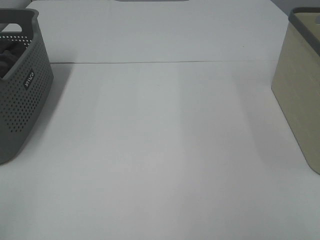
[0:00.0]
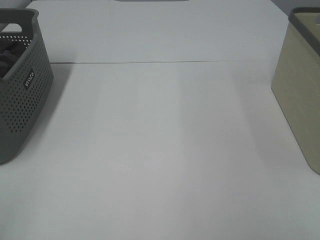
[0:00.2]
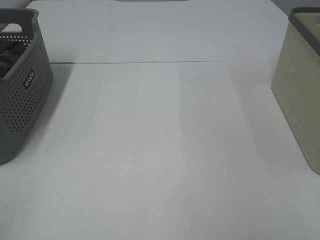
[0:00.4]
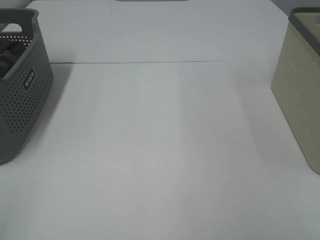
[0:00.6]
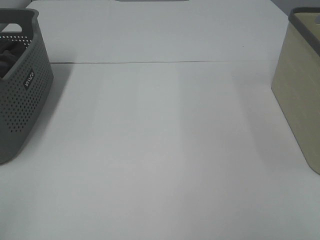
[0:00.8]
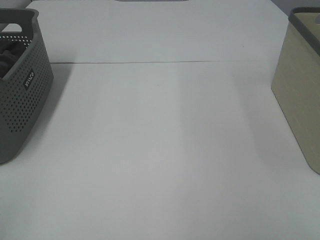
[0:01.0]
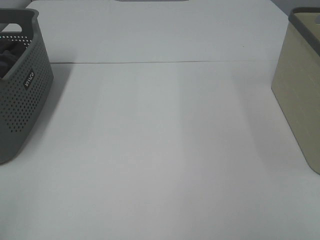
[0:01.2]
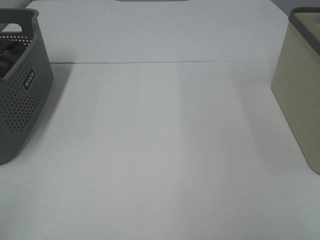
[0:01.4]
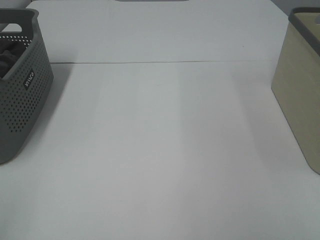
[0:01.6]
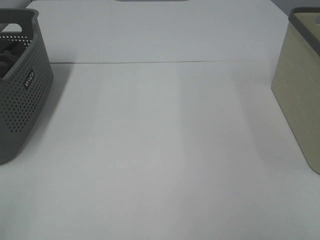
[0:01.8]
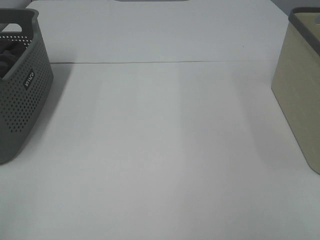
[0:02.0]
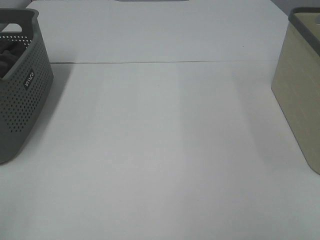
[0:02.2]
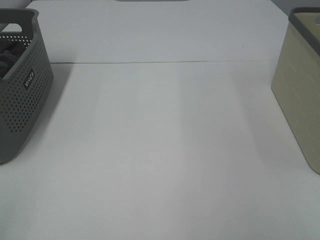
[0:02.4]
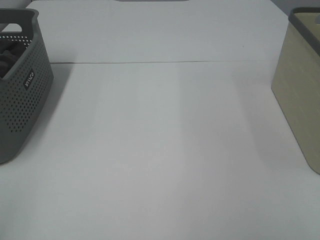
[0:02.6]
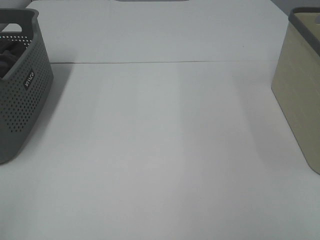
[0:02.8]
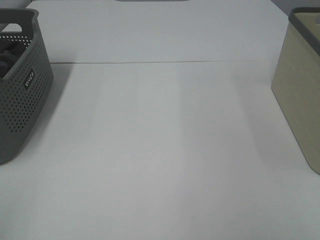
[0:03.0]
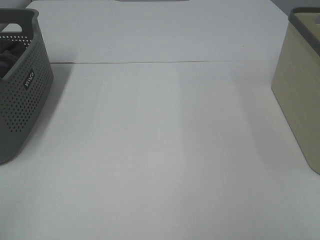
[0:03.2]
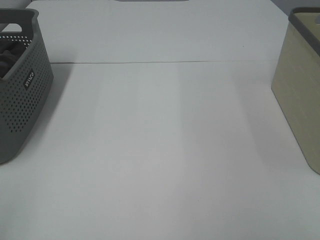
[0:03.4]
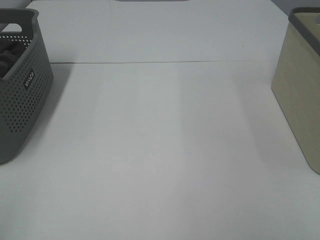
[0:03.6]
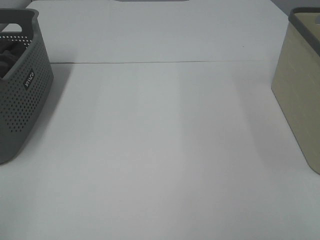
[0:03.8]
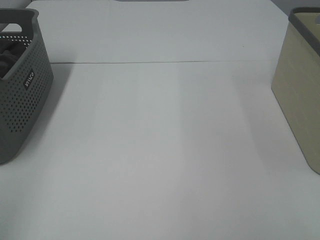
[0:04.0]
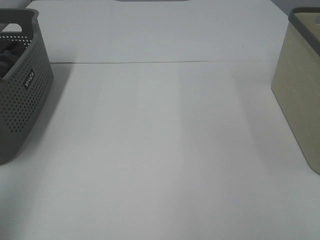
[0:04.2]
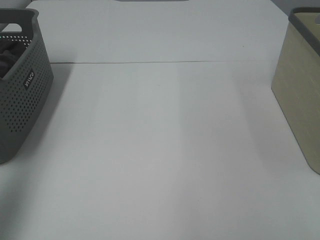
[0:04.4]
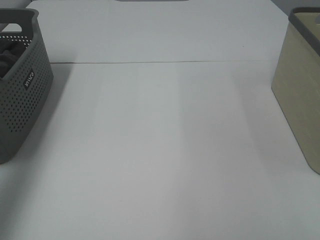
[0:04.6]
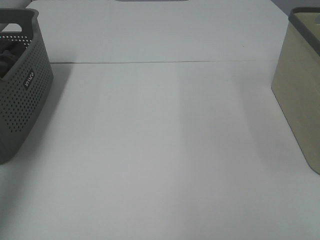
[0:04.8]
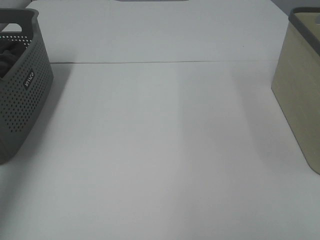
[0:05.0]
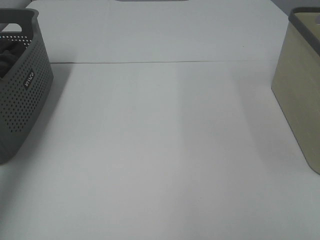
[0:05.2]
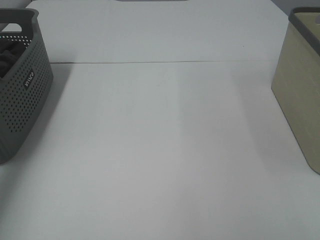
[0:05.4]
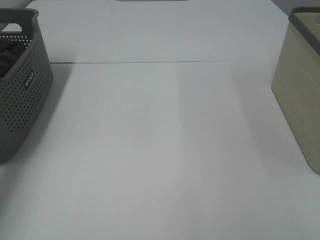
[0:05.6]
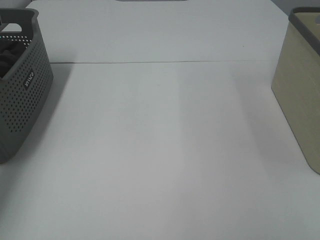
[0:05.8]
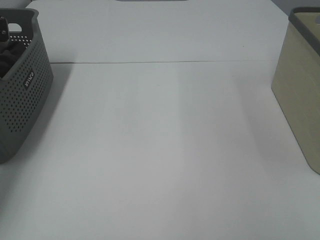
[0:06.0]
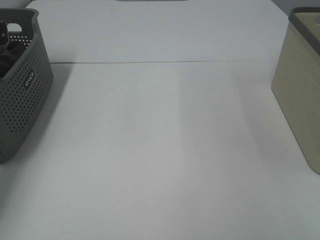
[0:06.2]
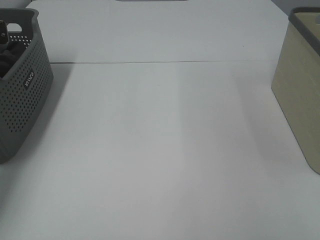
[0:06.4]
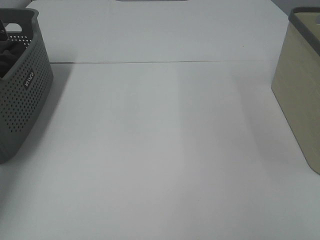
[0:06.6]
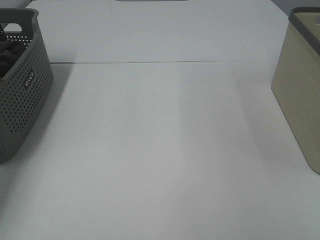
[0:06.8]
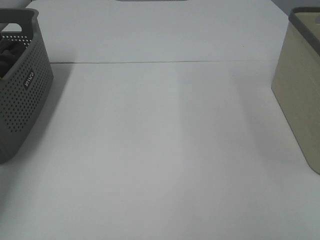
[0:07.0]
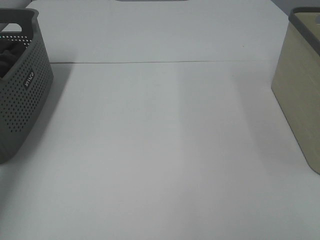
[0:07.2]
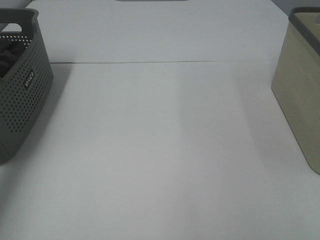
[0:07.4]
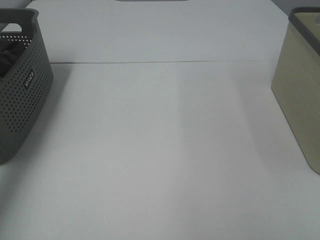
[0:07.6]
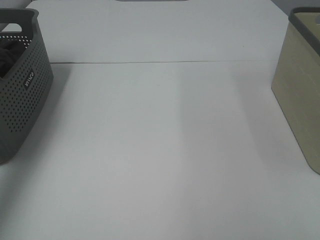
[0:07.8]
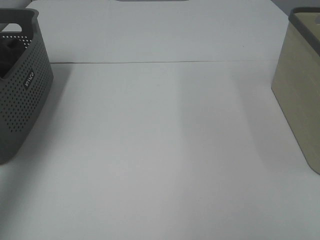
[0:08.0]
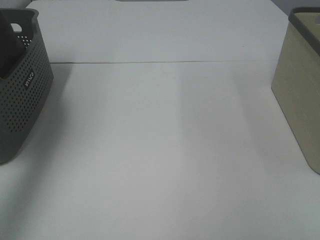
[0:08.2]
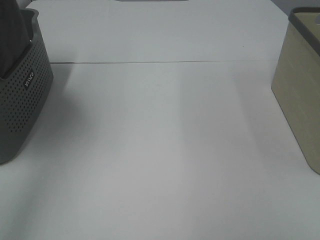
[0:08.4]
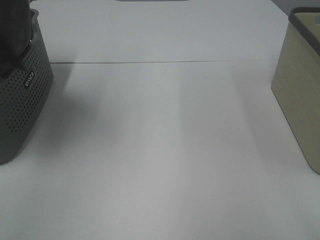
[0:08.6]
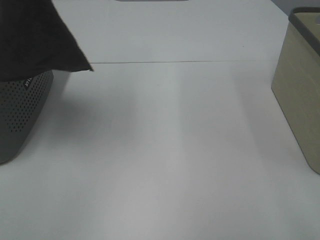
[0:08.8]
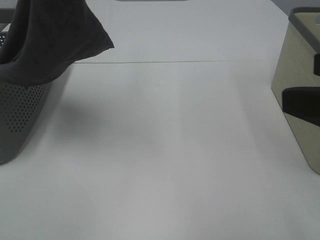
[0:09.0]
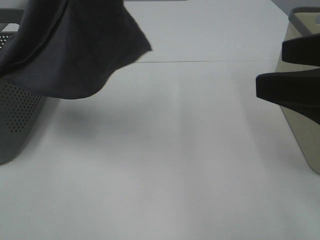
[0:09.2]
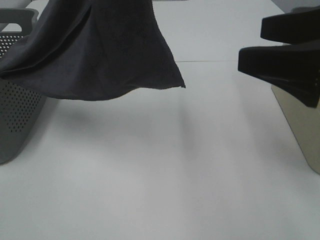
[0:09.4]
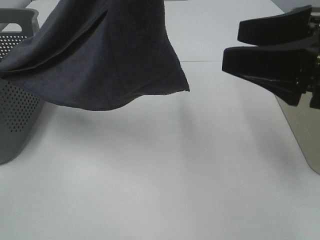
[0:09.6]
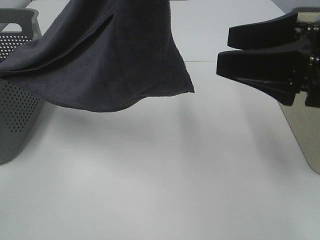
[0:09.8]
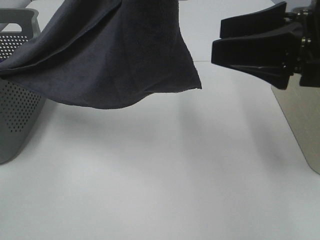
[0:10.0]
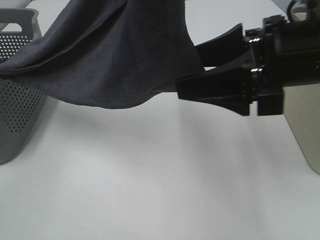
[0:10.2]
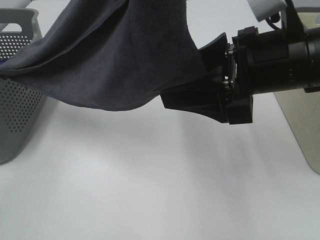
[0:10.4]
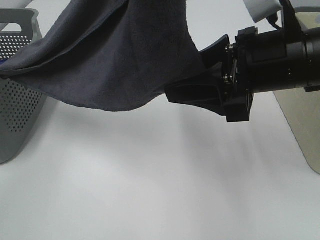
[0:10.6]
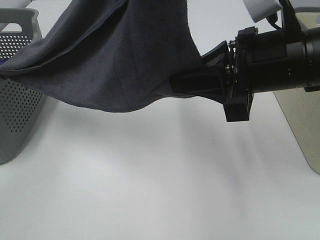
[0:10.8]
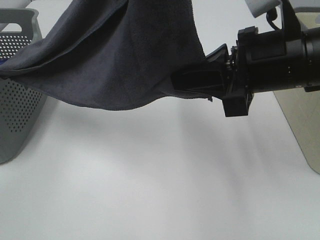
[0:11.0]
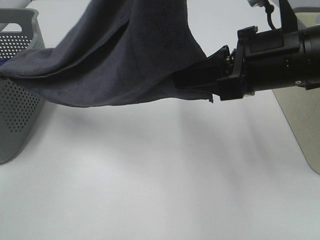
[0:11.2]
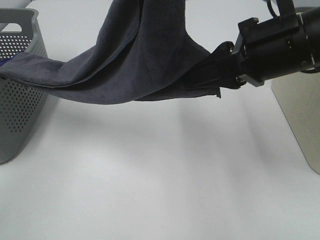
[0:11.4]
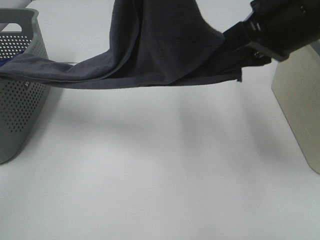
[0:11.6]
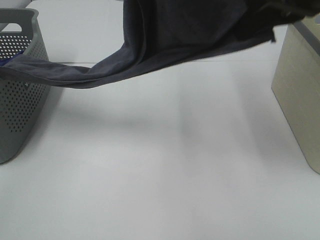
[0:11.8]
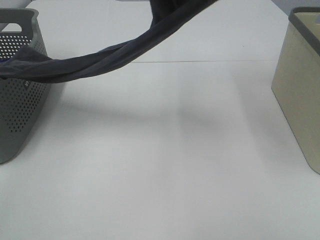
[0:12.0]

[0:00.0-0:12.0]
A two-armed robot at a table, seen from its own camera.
Task of the whole recording: Remove the towel and place it.
Step, 0:08.0 to 0:11.6: Right hand: grab a corner of the grey towel and straighten it.
0:00.0 to 0:03.0: Both grippers stay about where they are.
0:03.0 to 0:04.4: The left gripper moves forward and upward, approximately 20 cm.
0:04.4 to 0:06.0: The left gripper shifts about 35 cm forward and downward.
0:07.6 to 0:09.0: The right gripper shifts roughly 15 cm forward and to the left; the left gripper goes some 25 cm to the right, upward and backward.
0:09.0 to 0:10.4: The right gripper shifts roughly 15 cm forward, to the left and downward, while the left gripper shifts about 10 cm to the right.
0:10.4 to 0:12.0: The left gripper heads forward, covering approximately 5 cm. Meanwhile the right gripper travels upward by roughly 20 cm, and closes its fingers.

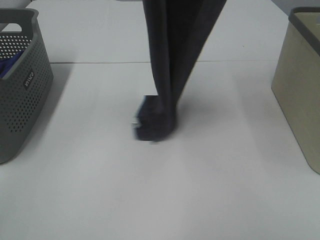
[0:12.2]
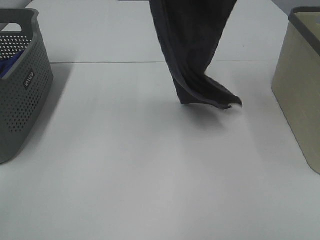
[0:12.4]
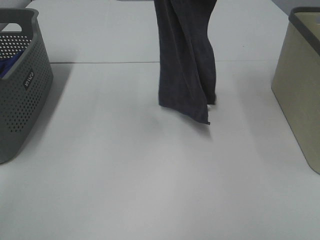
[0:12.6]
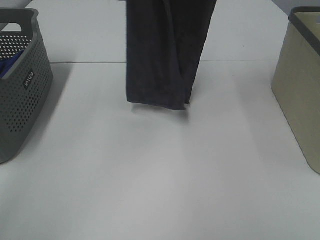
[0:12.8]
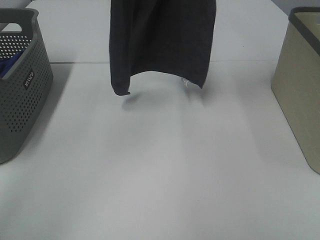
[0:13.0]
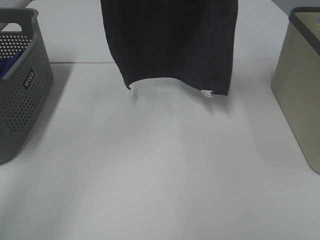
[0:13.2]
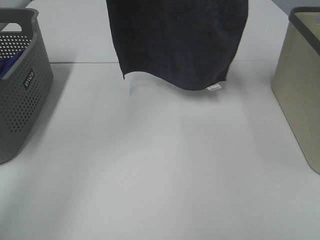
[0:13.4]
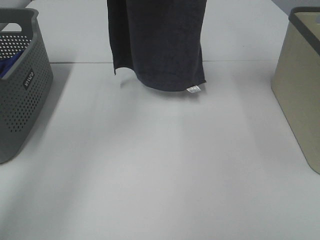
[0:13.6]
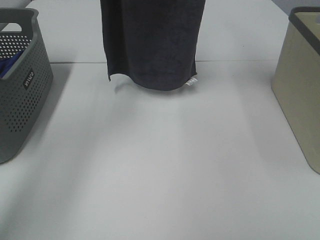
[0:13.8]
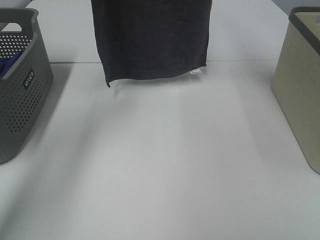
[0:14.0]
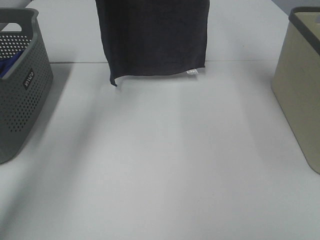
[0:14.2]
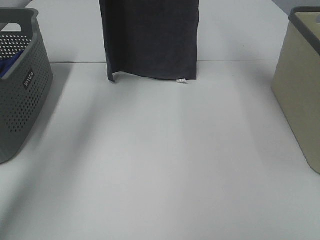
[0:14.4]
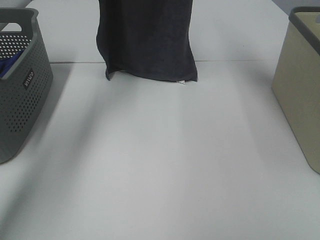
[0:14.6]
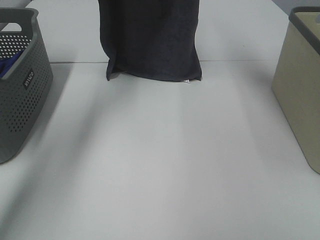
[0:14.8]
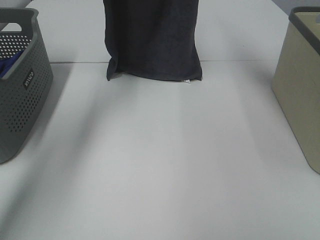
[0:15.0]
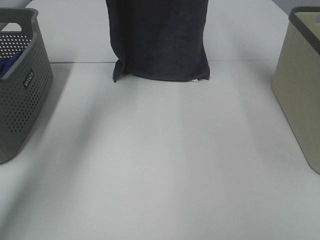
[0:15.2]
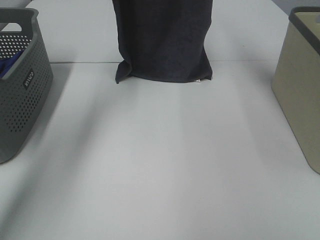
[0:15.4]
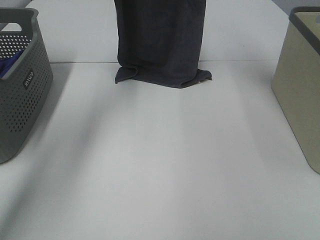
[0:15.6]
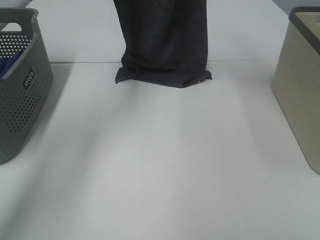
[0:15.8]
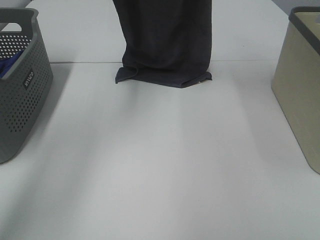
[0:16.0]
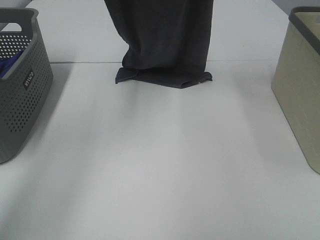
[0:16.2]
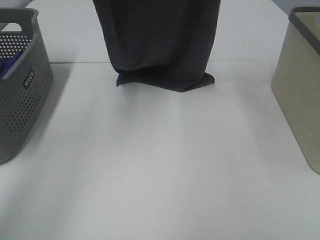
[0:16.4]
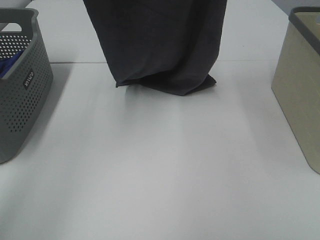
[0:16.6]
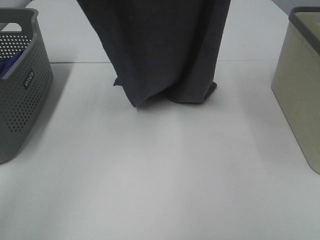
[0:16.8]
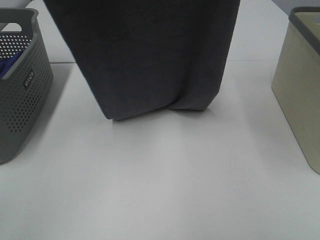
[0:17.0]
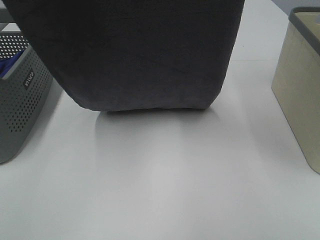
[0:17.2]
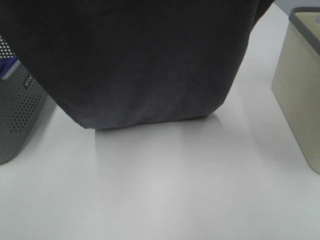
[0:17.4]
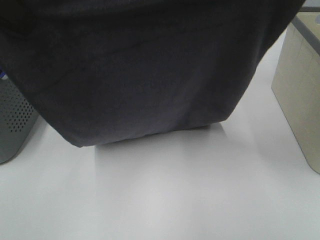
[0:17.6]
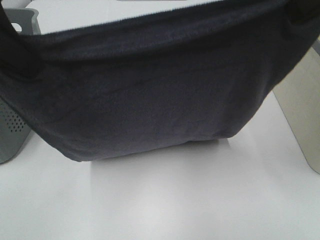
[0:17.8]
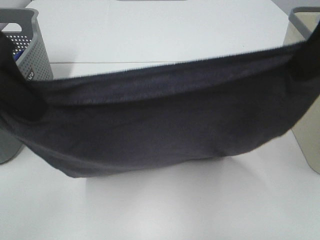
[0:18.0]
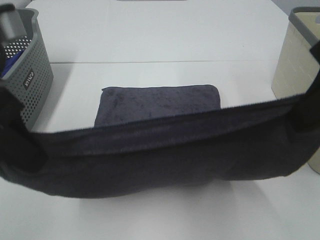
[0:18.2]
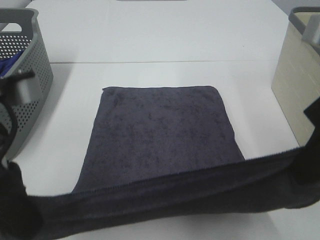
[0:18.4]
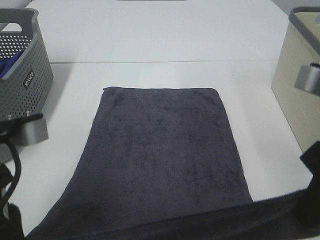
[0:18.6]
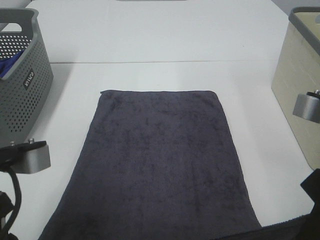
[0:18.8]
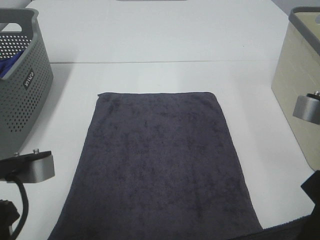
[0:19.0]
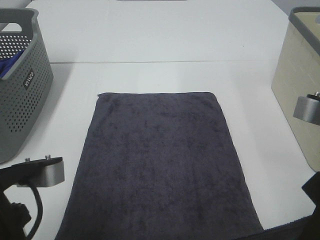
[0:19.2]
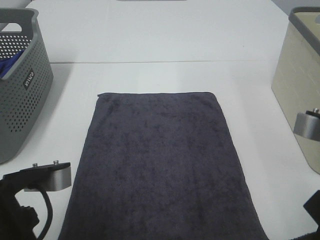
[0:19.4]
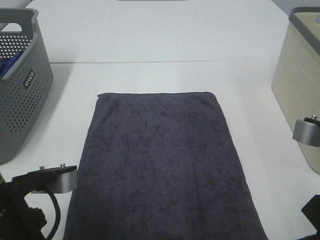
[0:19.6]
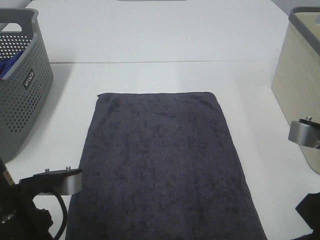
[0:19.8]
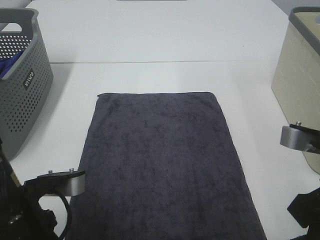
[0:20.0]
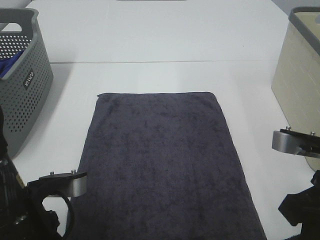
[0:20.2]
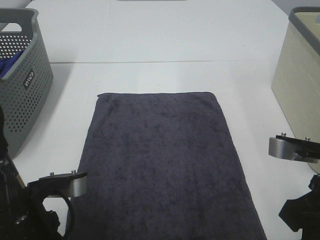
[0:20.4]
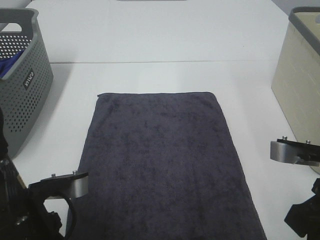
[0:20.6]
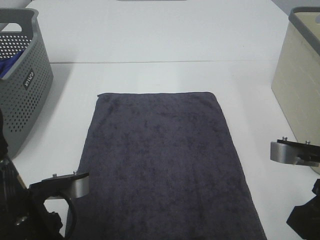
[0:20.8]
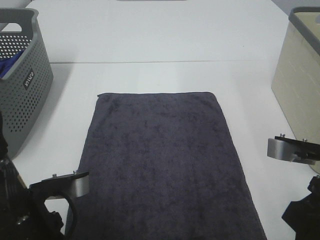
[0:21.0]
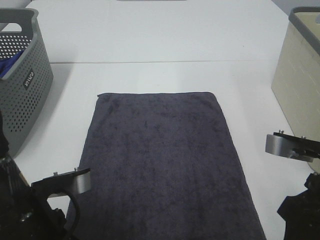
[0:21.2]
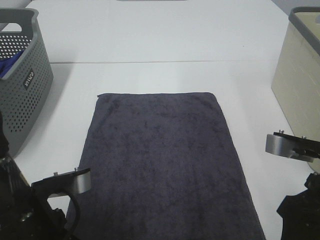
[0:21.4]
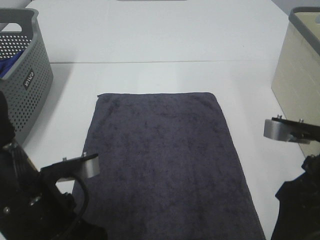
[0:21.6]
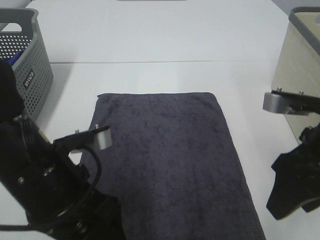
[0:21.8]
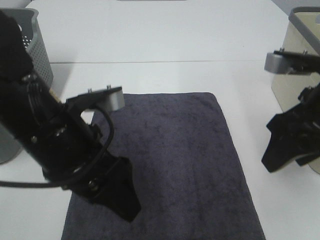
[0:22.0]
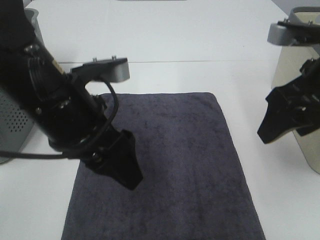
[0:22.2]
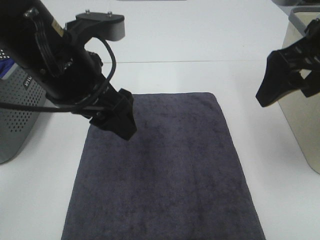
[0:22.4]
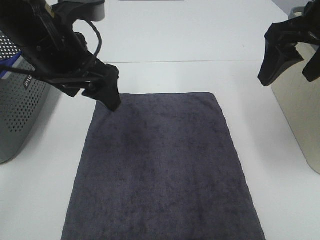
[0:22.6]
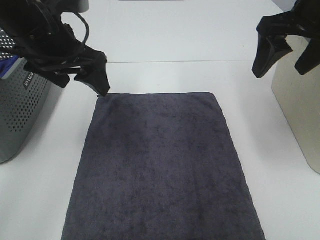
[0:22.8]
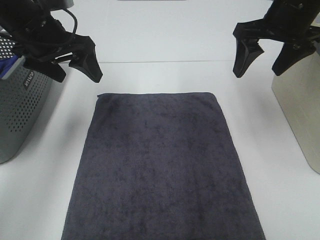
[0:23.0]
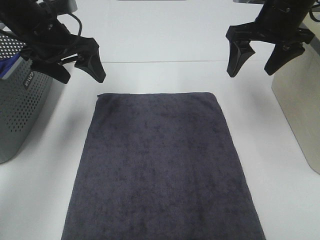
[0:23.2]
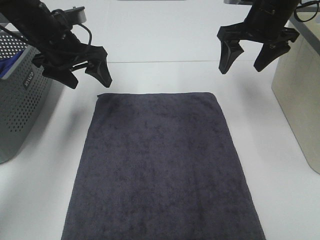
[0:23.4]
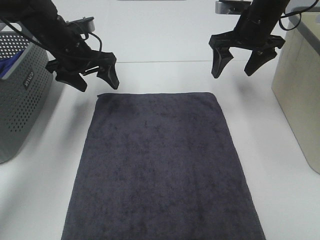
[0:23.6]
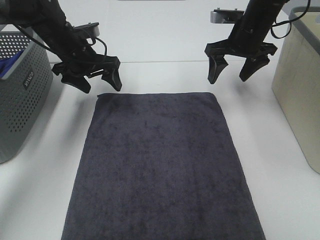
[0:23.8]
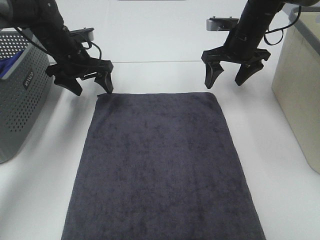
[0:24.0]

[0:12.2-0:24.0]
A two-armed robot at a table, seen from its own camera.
Task of the whole recording: Remove the towel and place it.
Step, 0:12.2 to 0:17.4: Left hand: spread the grey towel flat on the table.
Step, 0:12.2 to 0:17.4: Right hand: spread the grey towel flat on the table.
0:12.2 to 0:13.6: The two grippers go some 10 cm forward.
0:13.6 to 0:15.2: Both grippers travel together forward and downward, approximately 10 cm.
0:15.2 to 0:16.6: Both grippers move backward, roughly 15 cm.
0:16.6 to 0:18.2: The left gripper shifts roughly 25 cm backward and downward, while the right gripper moves downward and backward, about 25 cm.
0:18.2 to 0:19.6: The left gripper heads downward and backward, covering roughly 15 cm. Meanwhile the right gripper shifts about 10 cm downward.
0:19.6 to 0:21.0: The right gripper opens.
0:21.0 to 0:22.6: The two grippers go roughly 20 cm forward and upward. The left gripper opens. The right gripper opens.
0:22.6 to 0:24.0: The grippers both shift forward and downward by approximately 25 cm.
